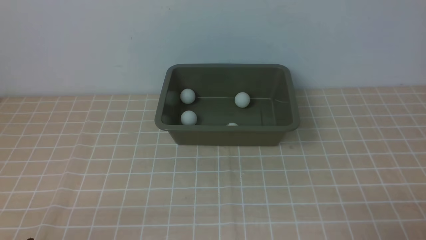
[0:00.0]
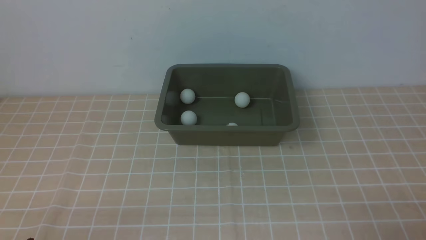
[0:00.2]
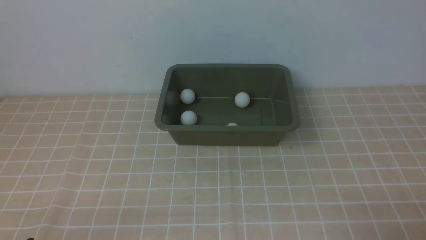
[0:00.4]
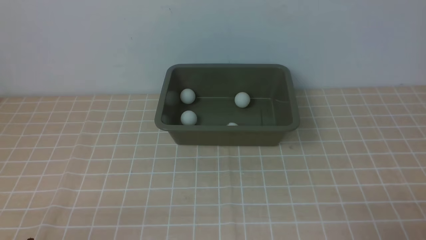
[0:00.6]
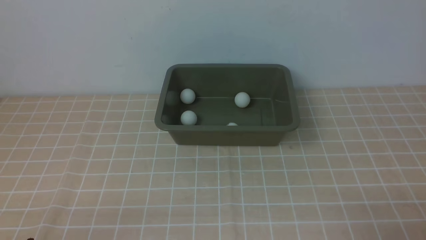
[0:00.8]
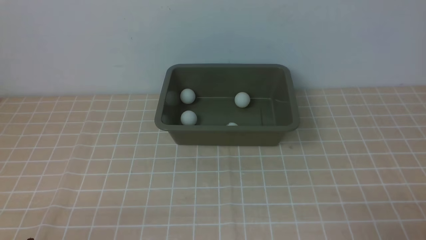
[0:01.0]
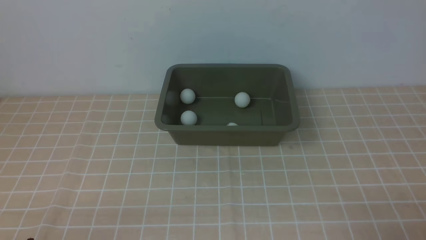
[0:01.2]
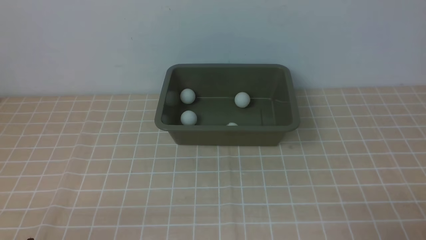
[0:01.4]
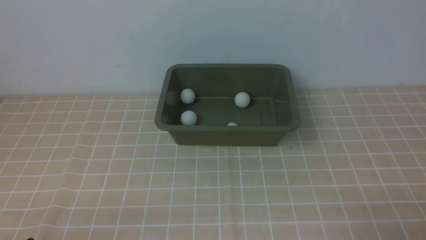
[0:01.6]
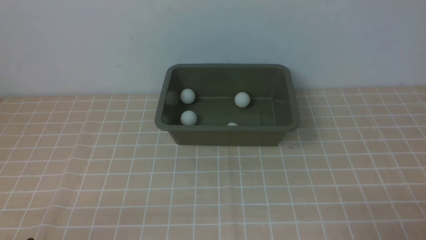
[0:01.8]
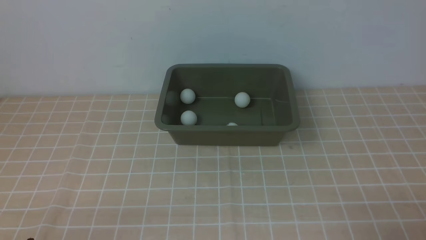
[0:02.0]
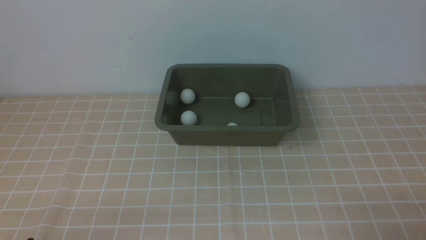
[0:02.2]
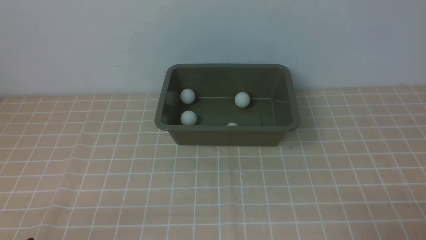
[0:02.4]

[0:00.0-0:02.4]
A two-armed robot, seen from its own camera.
0:00.0 to 0:02.4: The two grippers keep their place.

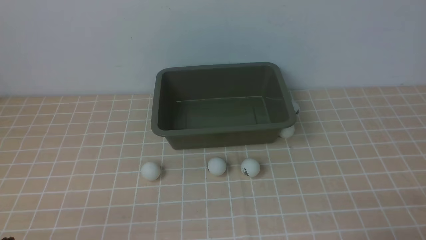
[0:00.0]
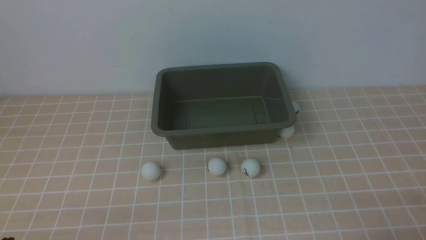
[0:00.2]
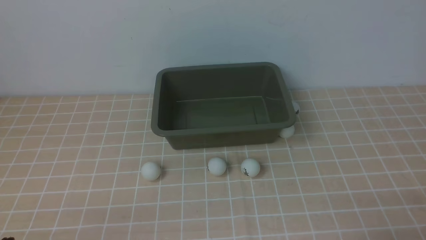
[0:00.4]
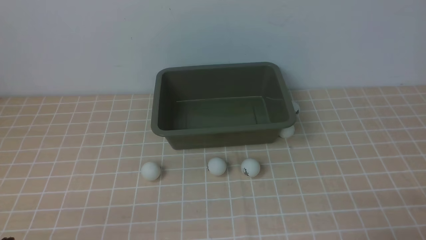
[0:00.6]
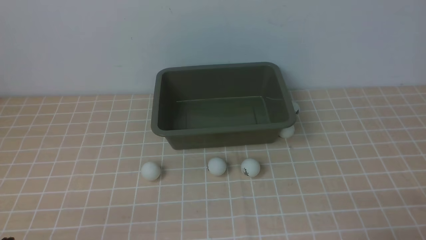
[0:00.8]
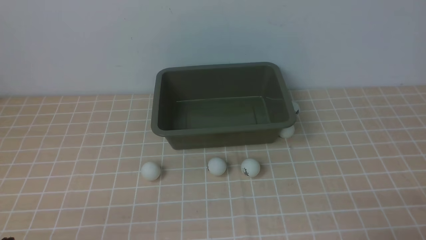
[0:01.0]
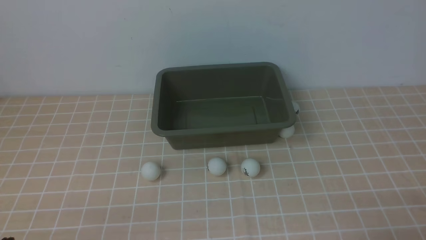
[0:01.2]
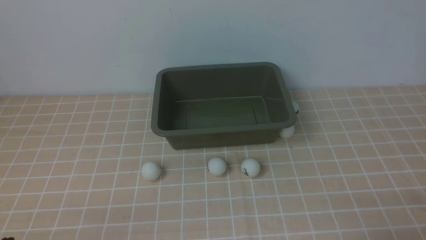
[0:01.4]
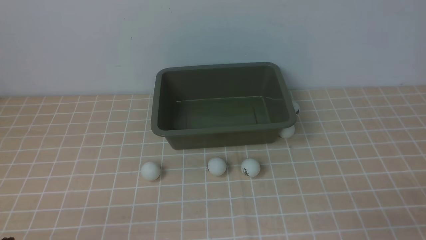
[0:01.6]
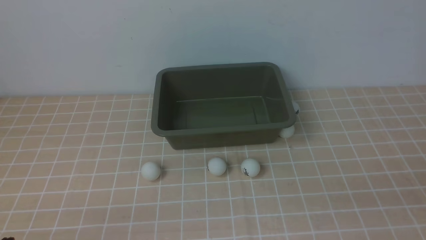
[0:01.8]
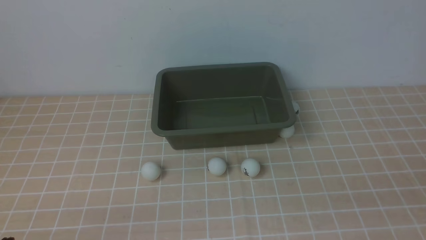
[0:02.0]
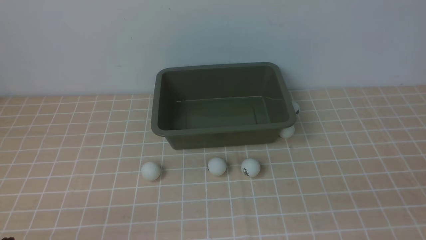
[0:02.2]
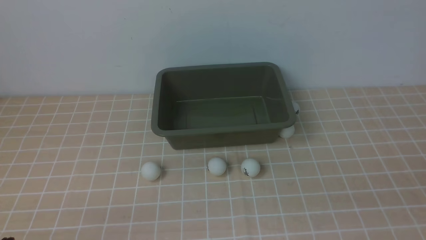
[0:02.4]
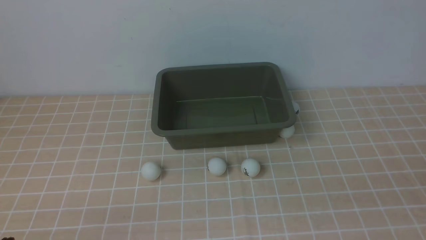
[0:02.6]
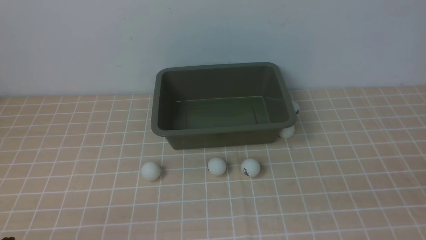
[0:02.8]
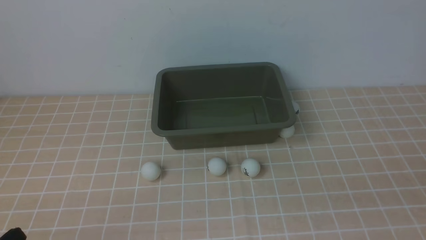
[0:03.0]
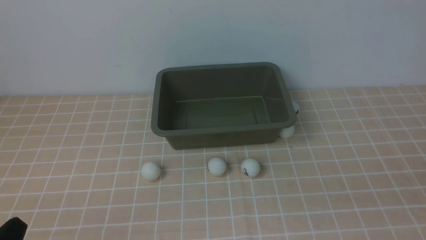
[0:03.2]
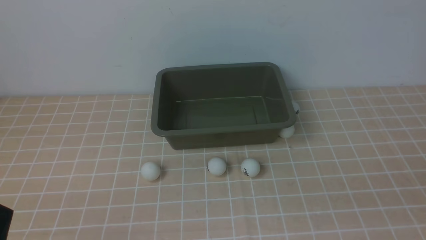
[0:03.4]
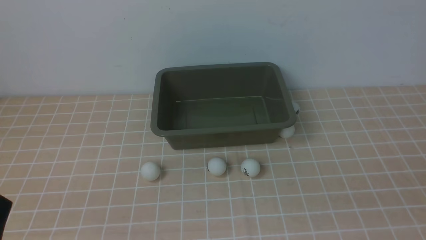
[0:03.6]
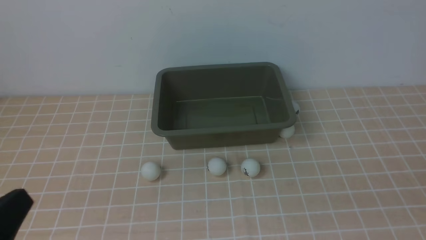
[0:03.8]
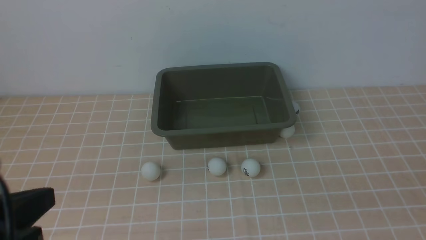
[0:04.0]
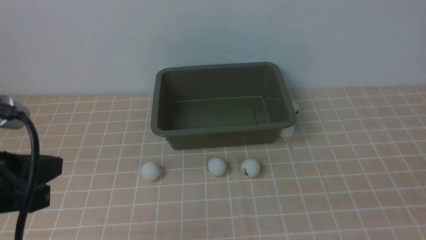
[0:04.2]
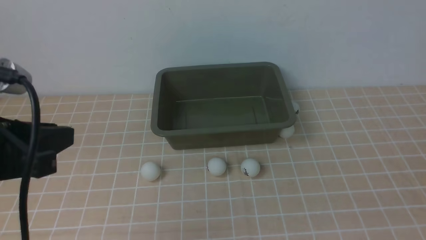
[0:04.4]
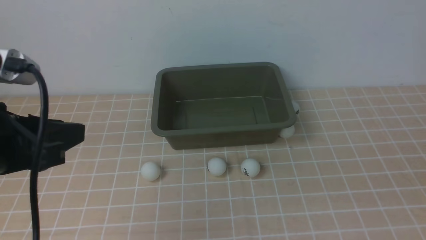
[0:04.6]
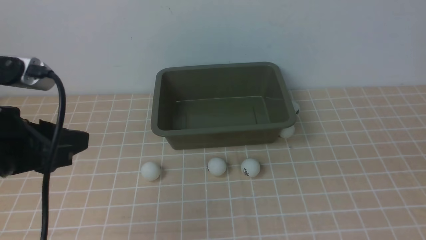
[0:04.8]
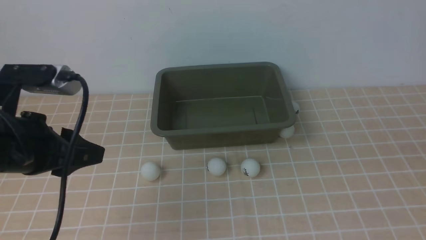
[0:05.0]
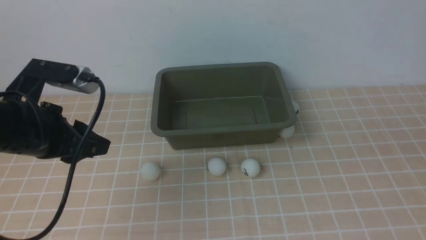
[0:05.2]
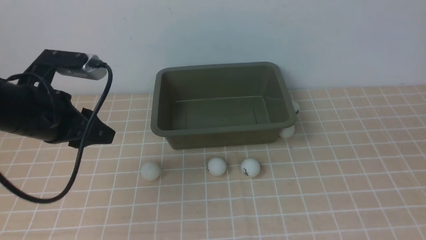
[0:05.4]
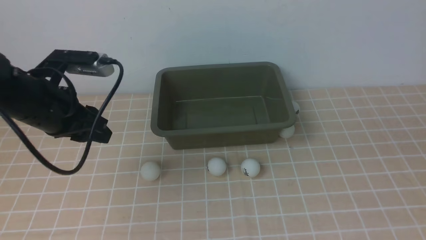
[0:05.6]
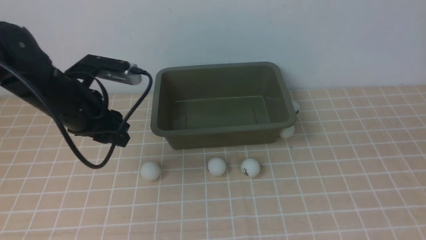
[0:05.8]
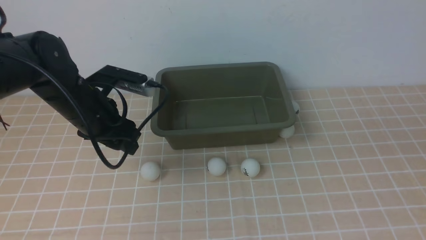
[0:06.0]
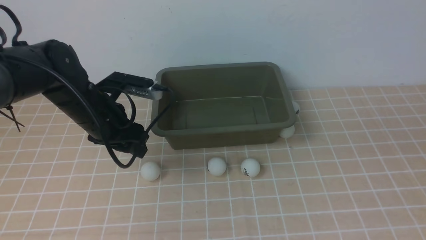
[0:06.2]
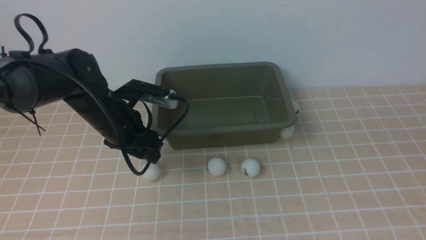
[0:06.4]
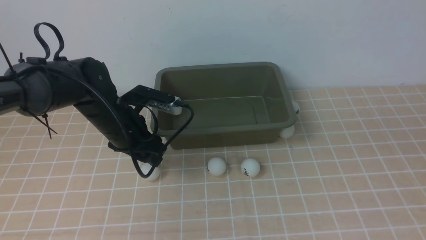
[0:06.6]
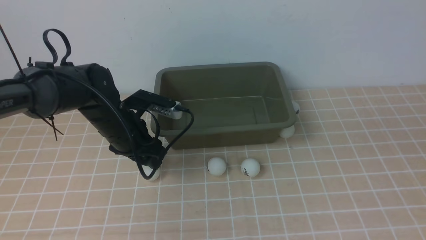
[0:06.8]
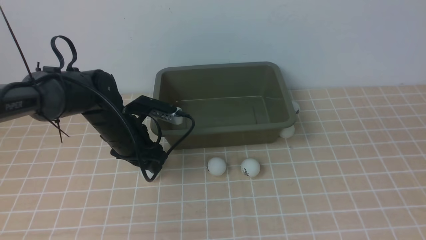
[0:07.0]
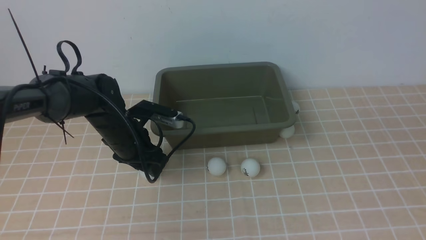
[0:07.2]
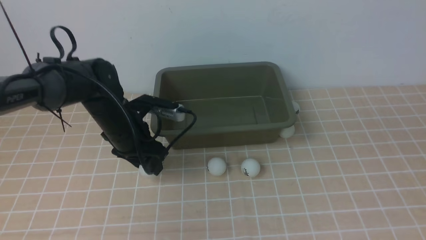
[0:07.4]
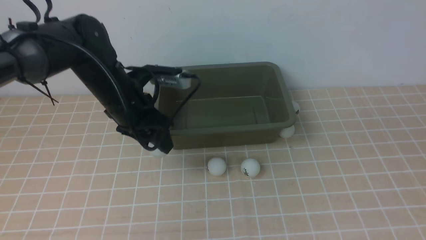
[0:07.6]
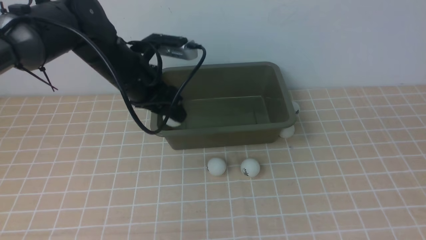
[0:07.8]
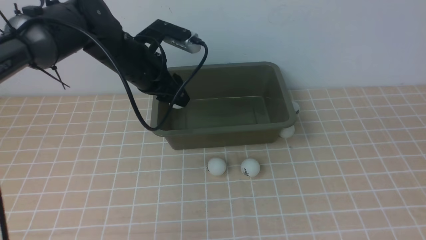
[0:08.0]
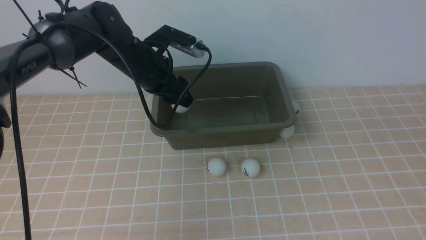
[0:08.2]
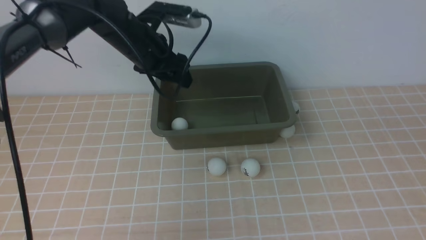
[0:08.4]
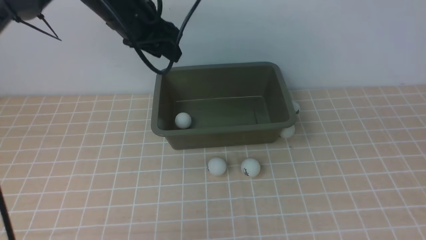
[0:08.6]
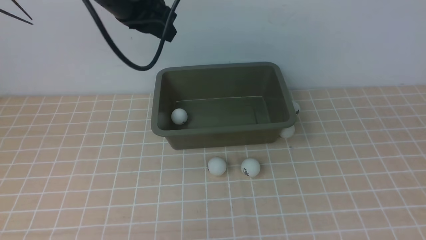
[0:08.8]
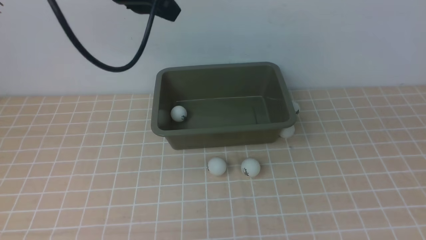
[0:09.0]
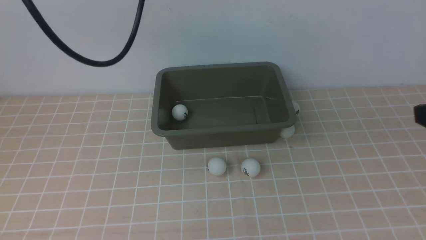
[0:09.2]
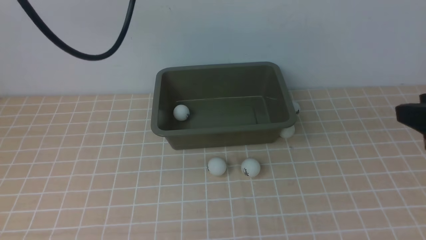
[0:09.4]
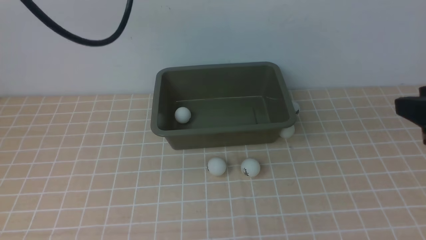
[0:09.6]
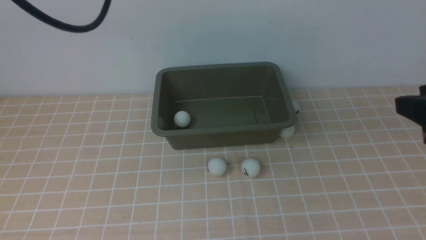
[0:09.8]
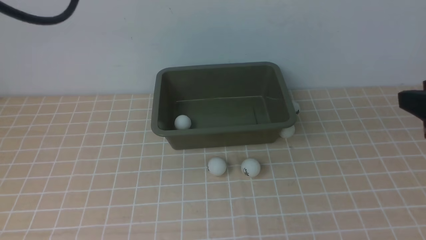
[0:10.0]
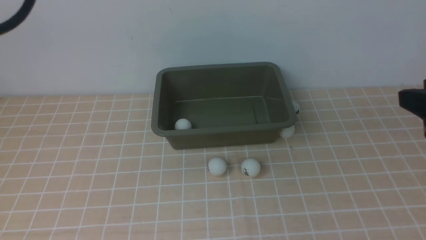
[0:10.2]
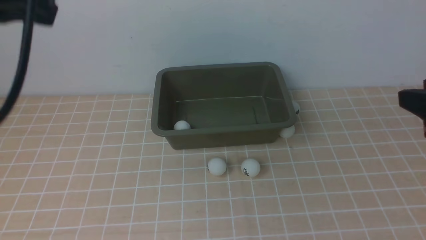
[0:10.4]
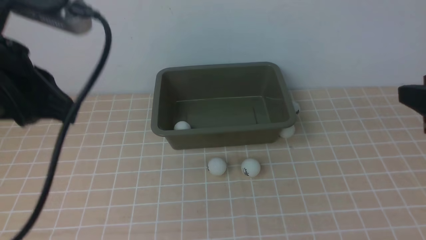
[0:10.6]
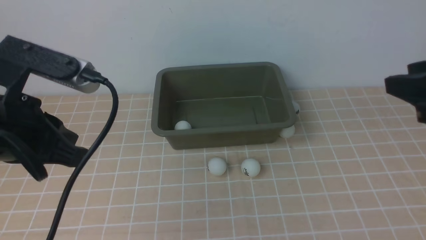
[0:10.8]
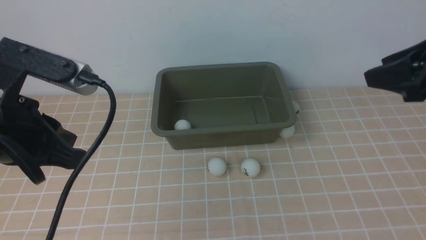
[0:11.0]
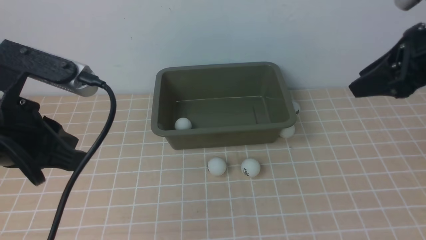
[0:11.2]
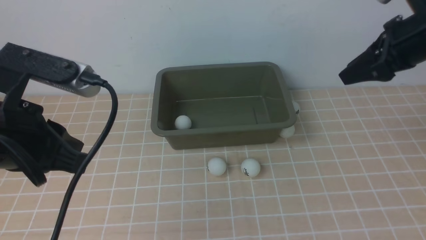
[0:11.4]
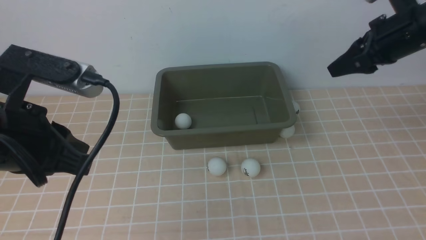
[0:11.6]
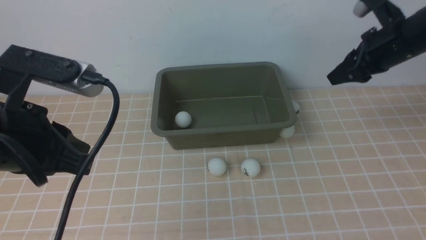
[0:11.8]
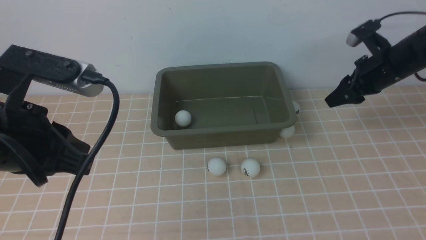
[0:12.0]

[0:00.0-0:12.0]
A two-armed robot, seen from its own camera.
Step, 0:00.0 to 0:07.2: use the left arm to clamp the table tennis ball closest to it.
Step, 0:07.6 to 0:08.4: use the left arm to put the table tennis ball into the box.
0:03.0 to 0:04.4: The left gripper moves upward and forward, approximately 20 cm, and opens.
0:04.4 to 0:06.0: The left gripper travels forward and downward by roughly 20 cm, and opens. The right gripper moves forward, roughly 10 cm, and opens up.
0:06.0 to 0:07.6: The left gripper goes about 5 cm to the right, and travels downward and back again, some 10 cm each way.
0:07.6 to 0:09.0: The left gripper goes approximately 20 cm upward, and closes.
0:09.0 to 0:10.4: The left gripper goes approximately 15 cm backward and to the left; the right gripper shifts by about 5 cm.
0:10.4 to 0:12.0: The right gripper travels forward and downward by about 25 cm, while the left gripper moves downward, approximately 10 cm.

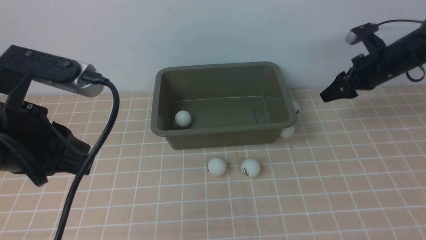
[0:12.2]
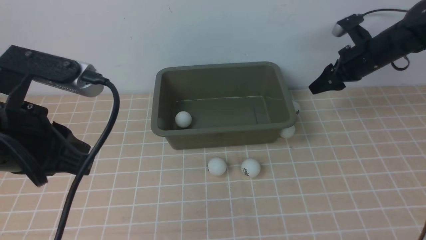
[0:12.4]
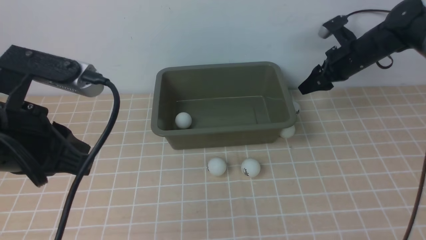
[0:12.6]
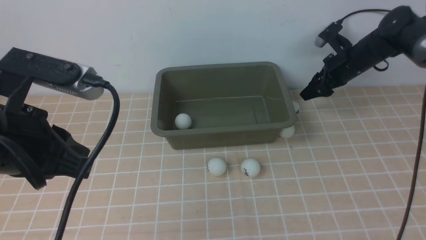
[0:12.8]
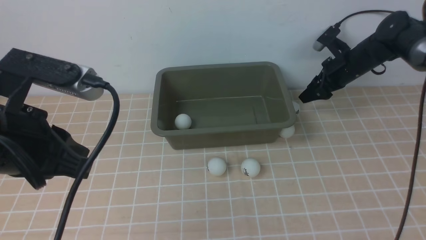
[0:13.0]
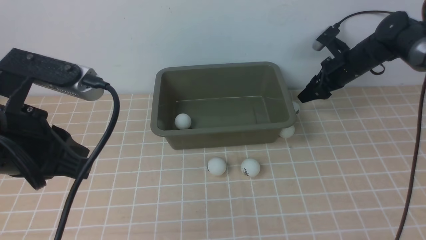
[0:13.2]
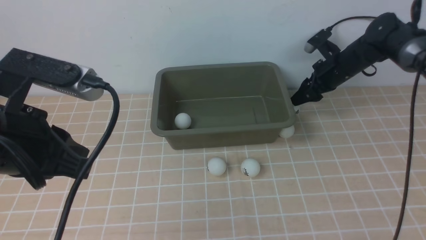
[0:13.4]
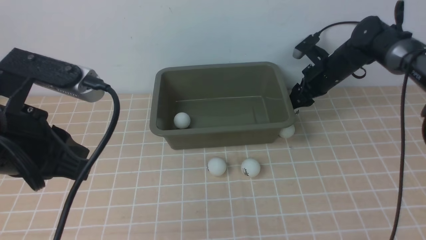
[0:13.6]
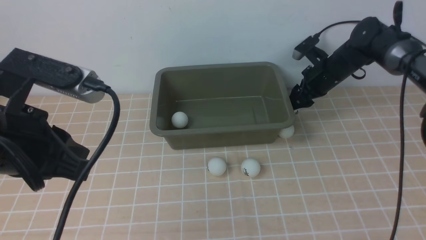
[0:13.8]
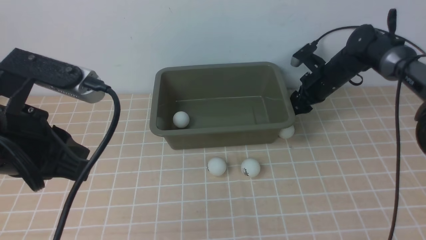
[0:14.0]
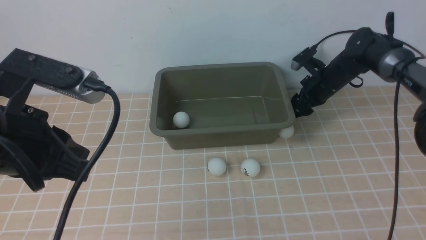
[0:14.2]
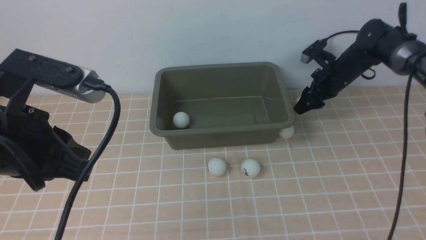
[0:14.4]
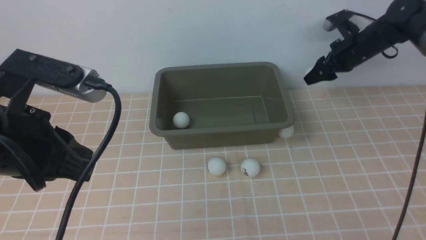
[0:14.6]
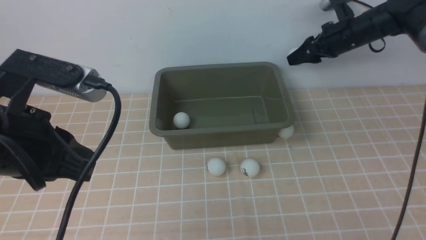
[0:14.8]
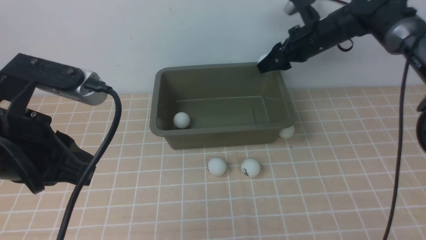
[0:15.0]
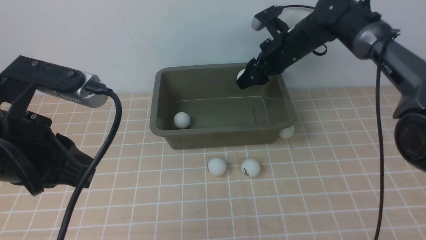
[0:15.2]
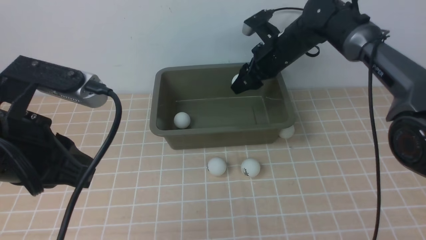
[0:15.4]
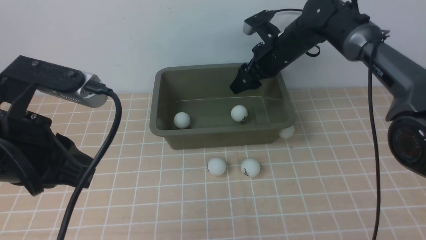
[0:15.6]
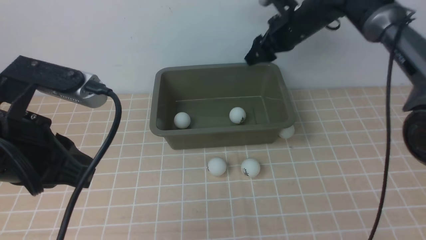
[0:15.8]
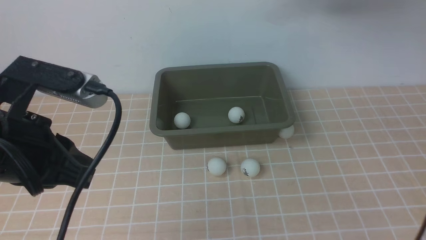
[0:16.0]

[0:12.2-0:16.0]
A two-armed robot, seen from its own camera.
Step, 0:12.2 to 0:14.8: use the right arm to clamp the table tennis ball closest to it.
Step, 0:15.0 to 0:15.8: use the right arm to put the table tennis ball into the box.
0:12.2 to 0:13.4: The right gripper moves forward and downward, about 5 cm.
0:13.4 to 0:14.8: The right gripper goes approximately 5 cm upward.
0:14.8 to 0:16.0: The right gripper shifts some 15 cm upward.
